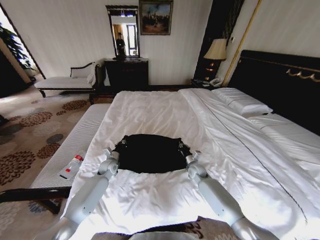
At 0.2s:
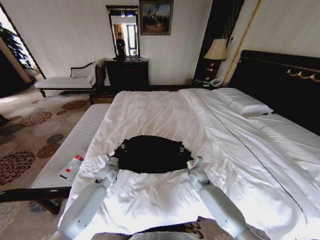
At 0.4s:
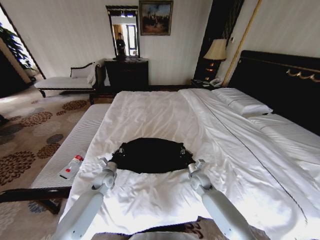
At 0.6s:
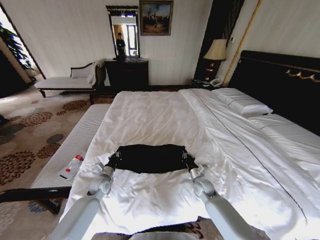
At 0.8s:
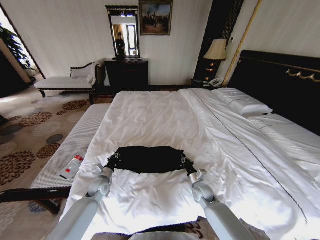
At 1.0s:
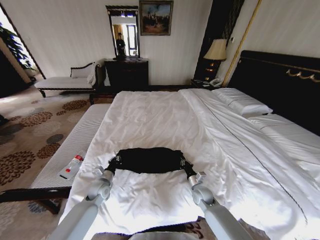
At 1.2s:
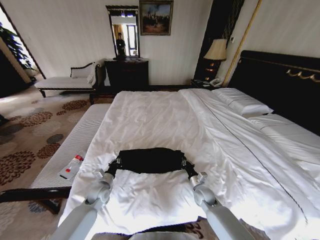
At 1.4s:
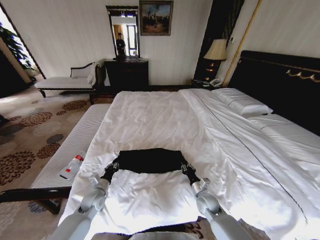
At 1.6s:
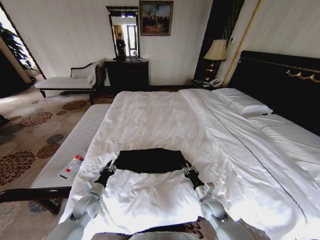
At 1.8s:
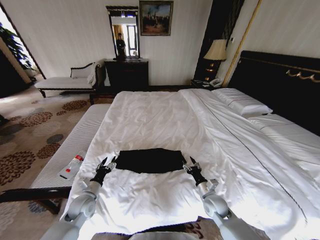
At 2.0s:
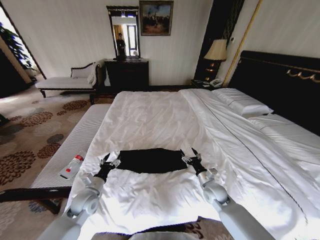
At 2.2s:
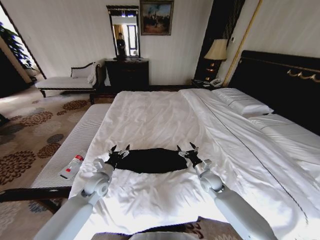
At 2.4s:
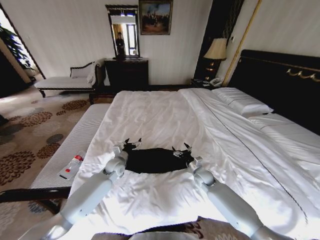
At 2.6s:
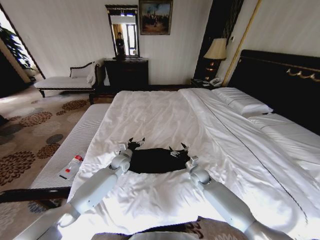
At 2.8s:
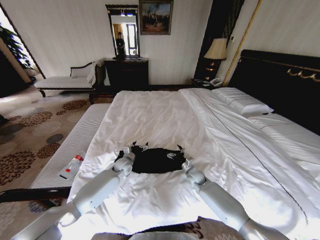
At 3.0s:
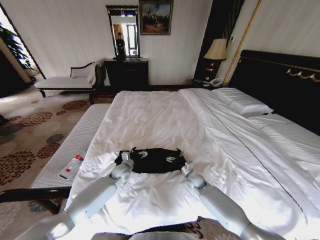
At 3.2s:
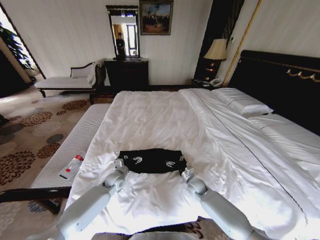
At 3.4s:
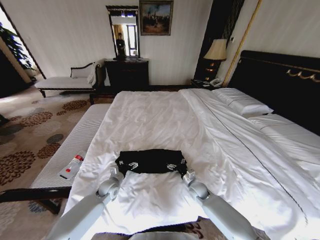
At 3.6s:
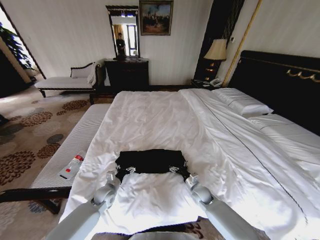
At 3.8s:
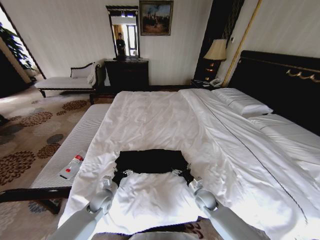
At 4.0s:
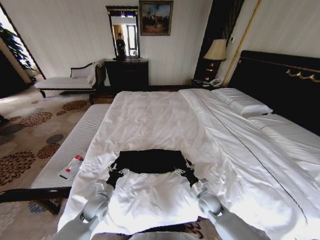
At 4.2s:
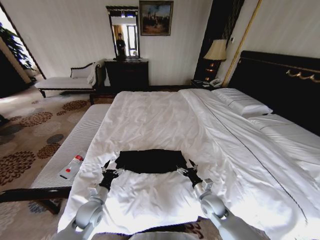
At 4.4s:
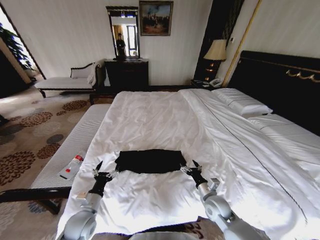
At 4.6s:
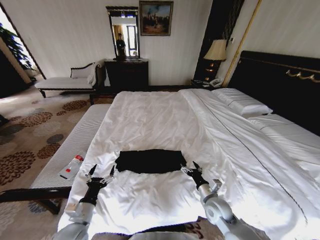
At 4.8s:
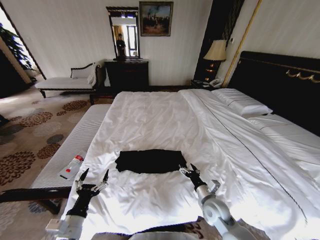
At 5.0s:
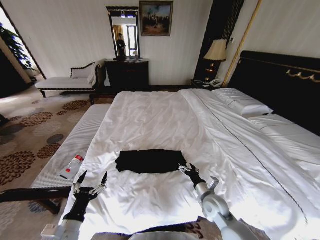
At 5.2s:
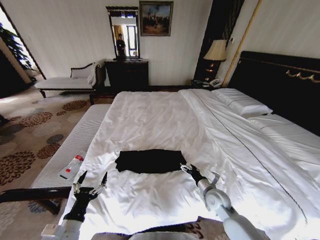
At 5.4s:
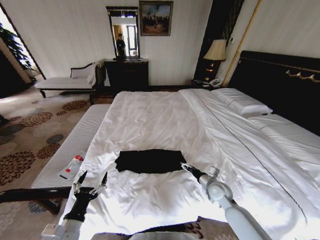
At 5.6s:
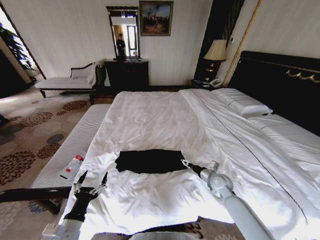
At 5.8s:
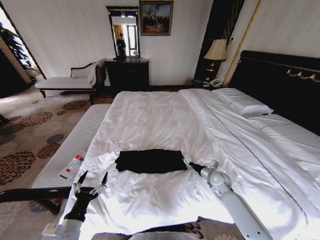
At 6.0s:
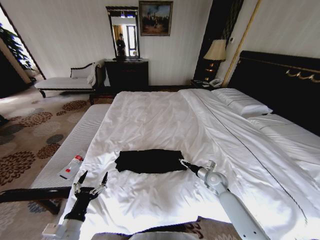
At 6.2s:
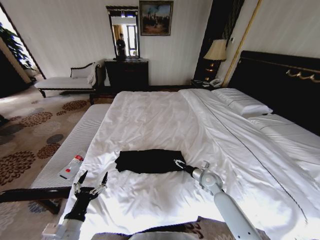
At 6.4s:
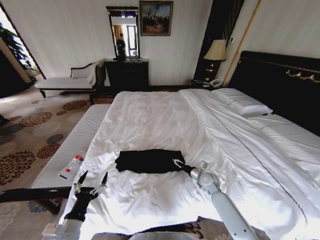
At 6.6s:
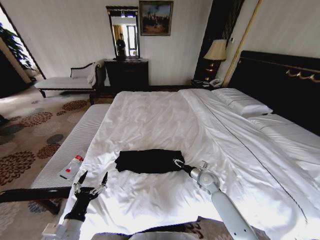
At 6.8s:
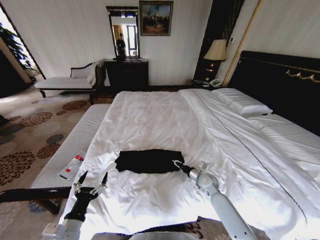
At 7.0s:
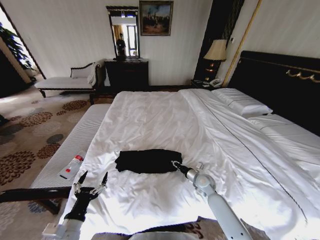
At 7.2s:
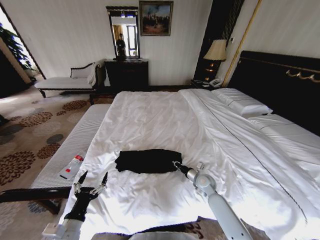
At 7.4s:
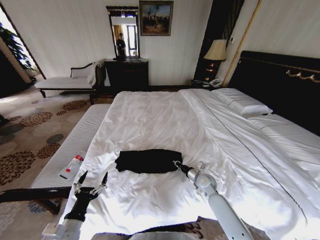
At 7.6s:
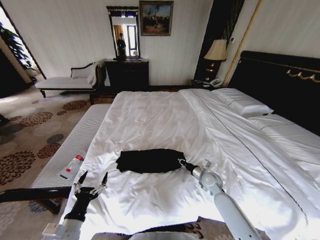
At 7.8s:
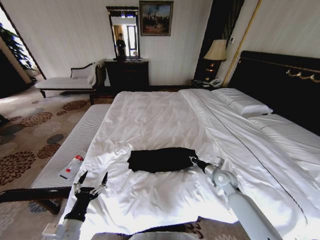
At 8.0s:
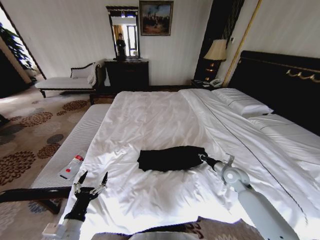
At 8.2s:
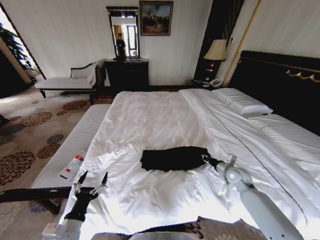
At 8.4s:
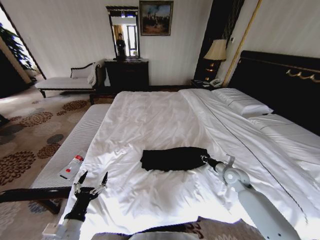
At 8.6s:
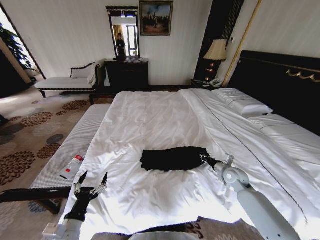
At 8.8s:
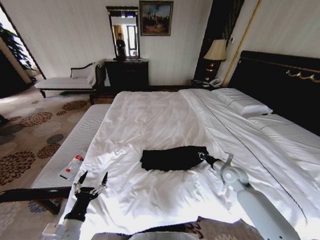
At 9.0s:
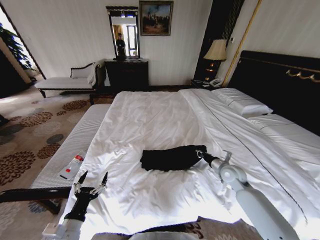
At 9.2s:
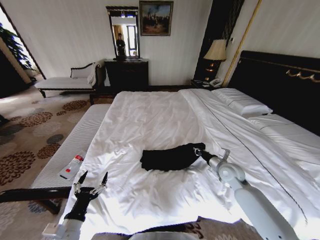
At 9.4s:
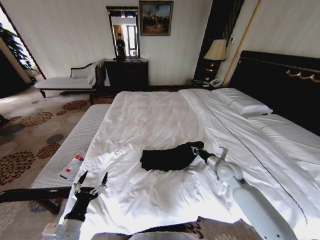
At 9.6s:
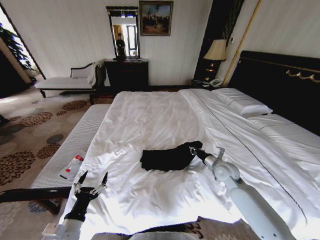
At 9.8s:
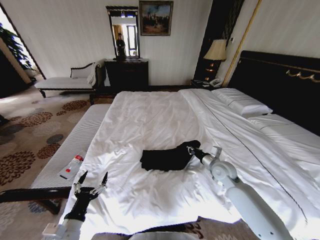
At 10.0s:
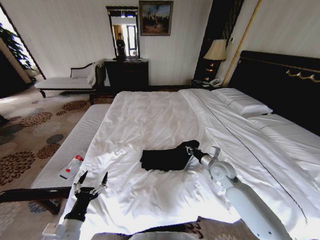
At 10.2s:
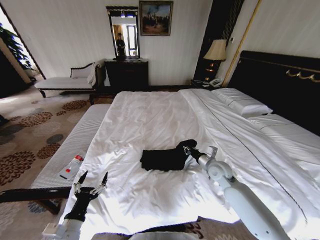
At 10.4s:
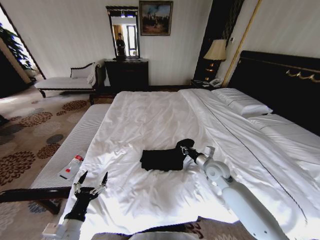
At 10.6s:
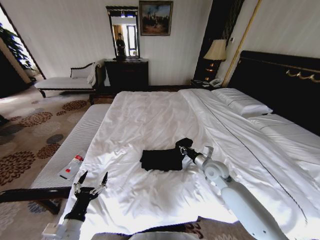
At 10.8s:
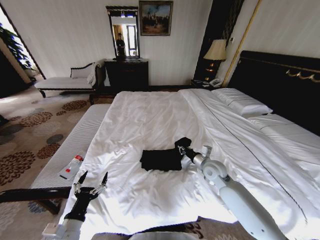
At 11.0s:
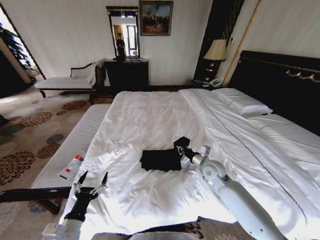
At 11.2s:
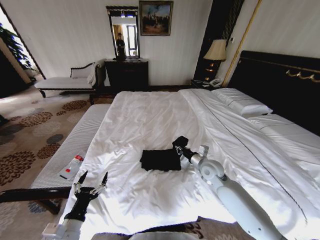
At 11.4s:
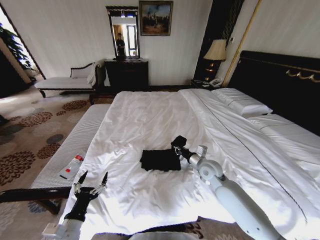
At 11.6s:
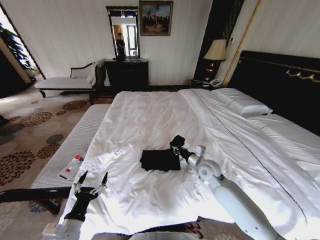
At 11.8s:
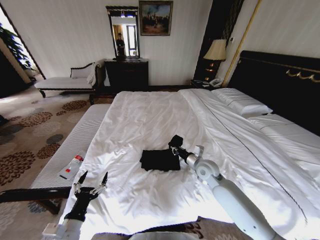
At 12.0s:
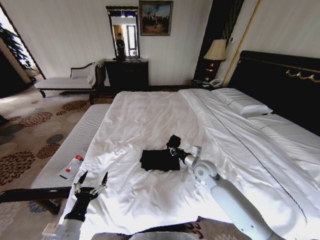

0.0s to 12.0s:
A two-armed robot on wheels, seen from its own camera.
Task of the whole recording: Fold the clothes on the bed.
0.0s to 1.6s: The two grippers go approximately 20 cm backward. The left gripper opens up. Meanwhile the right gripper opens up.
1.6s to 3.0s: The left gripper heads forward and to the right, covering some 20 cm, and opens its fingers, while the right gripper shifts roughly 15 cm forward, and opens its fingers.
3.0s to 4.4s: The right gripper heads backward and upward, covering roughly 15 cm. Meanwhile the left gripper goes roughly 25 cm backward and to the left.
4.4s to 6.0s: The left gripper travels backward by about 10 cm; the right gripper travels forward and to the right by approximately 15 cm.
6.0s to 7.6s: The right gripper closes up.
7.6s to 9.0s: The right gripper moves upward and to the right, about 10 cm.
9.0s to 10.4s: The right gripper shifts some 5 cm to the left.
10.4s to 12.0s: The right gripper travels to the left by about 5 cm.

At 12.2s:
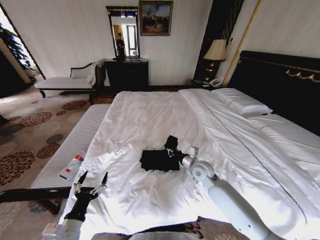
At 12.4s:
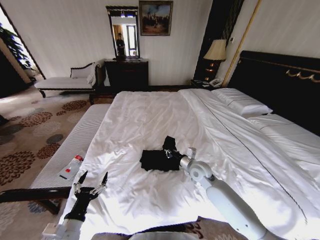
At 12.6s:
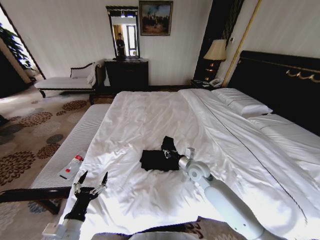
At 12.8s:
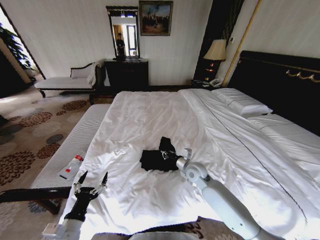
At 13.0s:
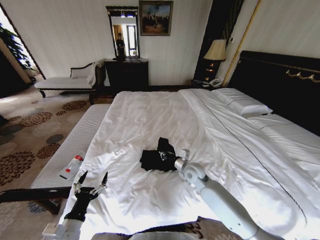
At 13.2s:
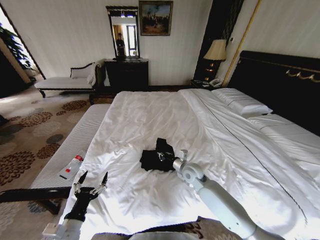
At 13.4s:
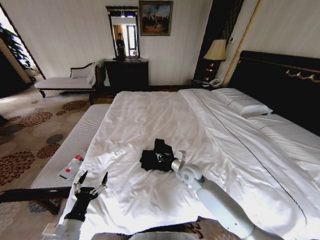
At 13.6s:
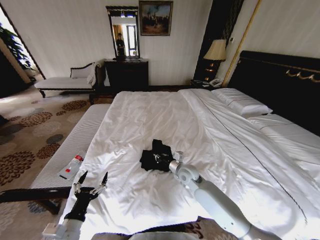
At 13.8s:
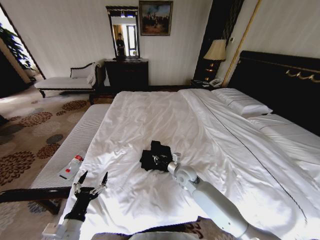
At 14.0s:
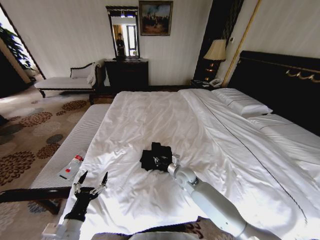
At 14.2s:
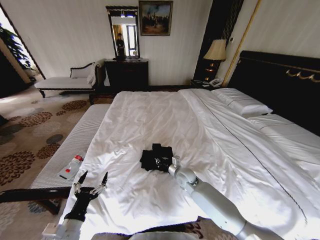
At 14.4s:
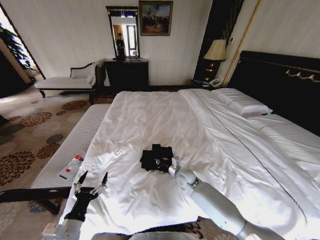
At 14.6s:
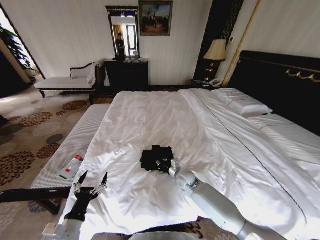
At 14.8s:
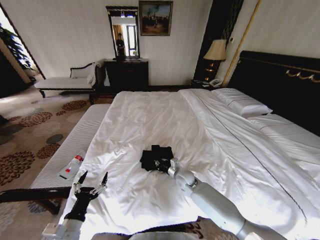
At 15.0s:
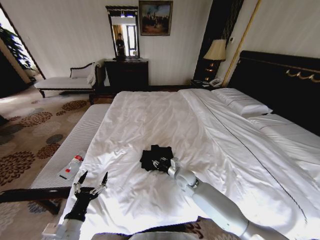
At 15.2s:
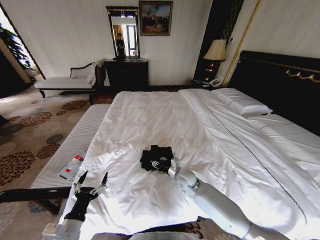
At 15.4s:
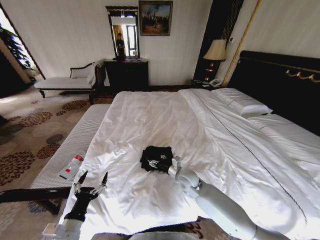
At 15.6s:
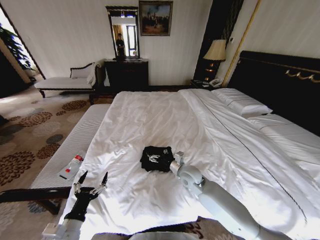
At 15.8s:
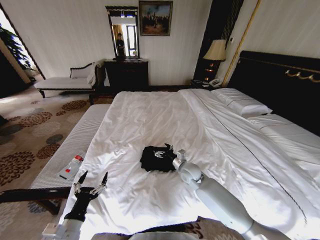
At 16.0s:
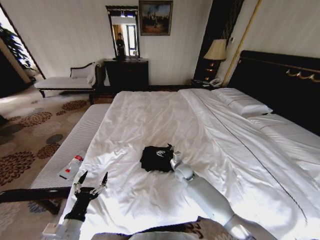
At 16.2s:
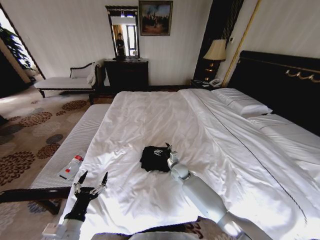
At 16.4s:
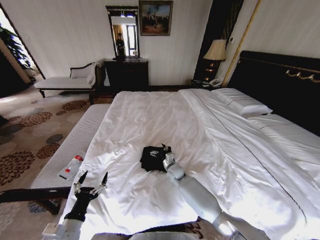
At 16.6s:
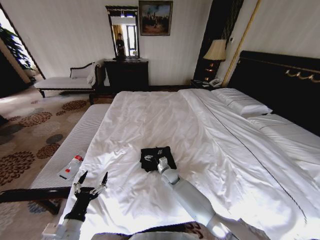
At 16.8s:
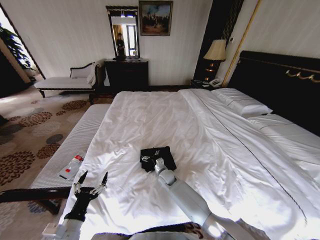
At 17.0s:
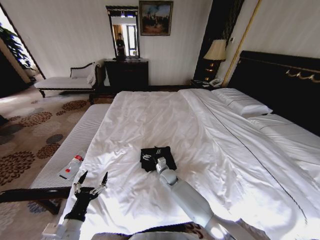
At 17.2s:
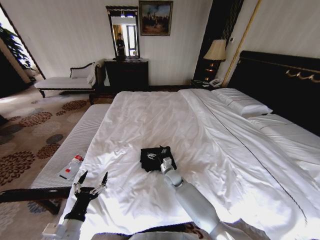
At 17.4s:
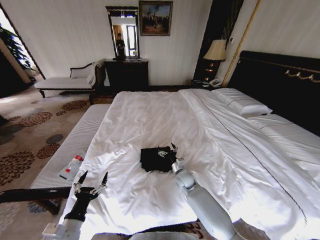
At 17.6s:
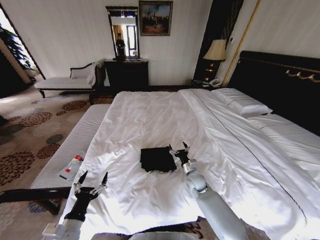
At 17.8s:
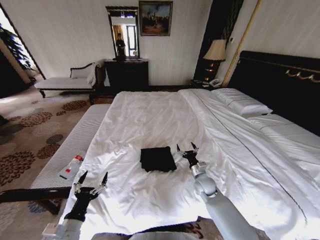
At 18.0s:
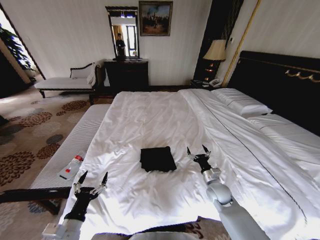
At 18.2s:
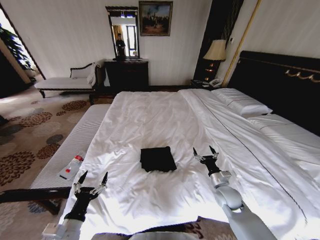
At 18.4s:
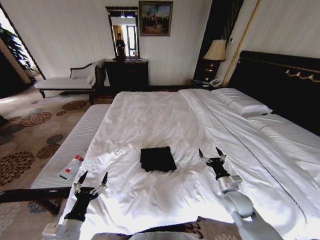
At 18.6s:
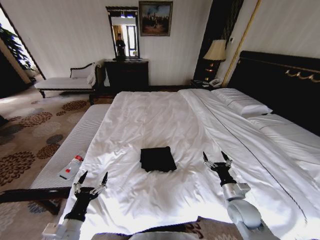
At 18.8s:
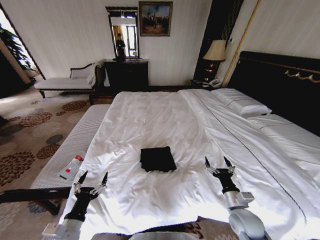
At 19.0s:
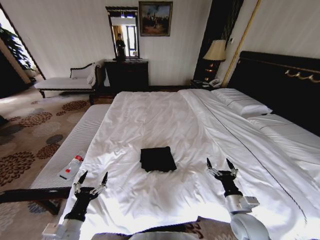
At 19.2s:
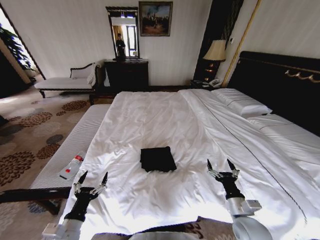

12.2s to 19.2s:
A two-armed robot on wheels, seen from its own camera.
Task of the whole recording: Fold the clothes on the bed.
12.2s to 13.6s: The right gripper heads to the left, covering some 5 cm.
15.0s to 16.4s: The right gripper travels forward by approximately 5 cm, and opens.
16.4s to 17.8s: The right gripper shifts some 15 cm to the right and backward.
17.8s to 19.2s: The right gripper is displaced backward and to the right by about 20 cm.

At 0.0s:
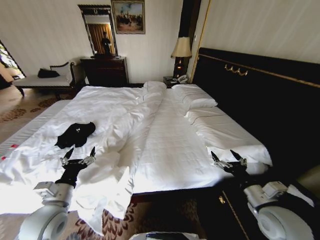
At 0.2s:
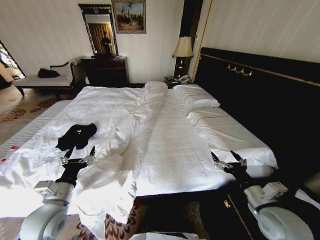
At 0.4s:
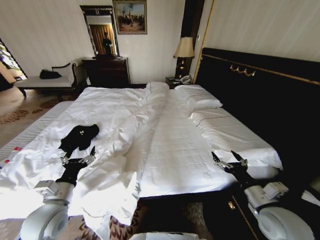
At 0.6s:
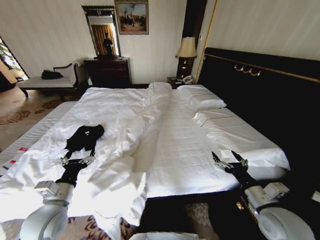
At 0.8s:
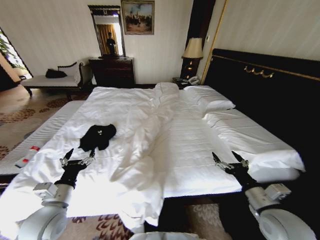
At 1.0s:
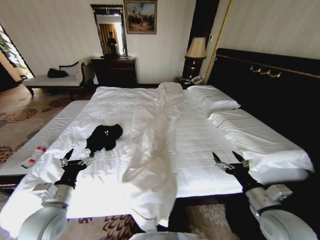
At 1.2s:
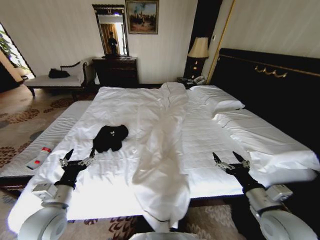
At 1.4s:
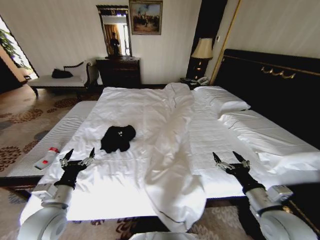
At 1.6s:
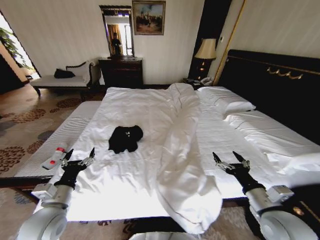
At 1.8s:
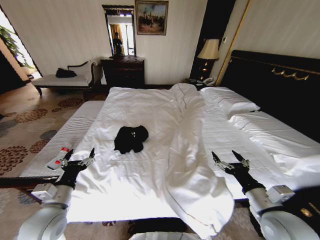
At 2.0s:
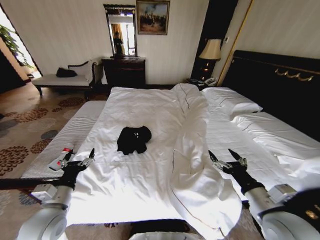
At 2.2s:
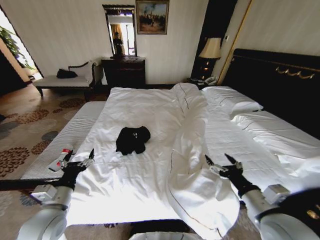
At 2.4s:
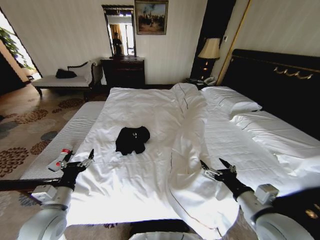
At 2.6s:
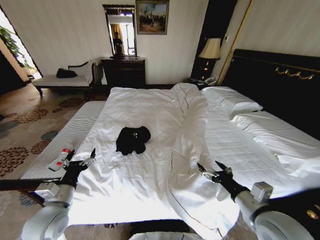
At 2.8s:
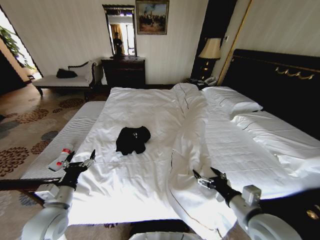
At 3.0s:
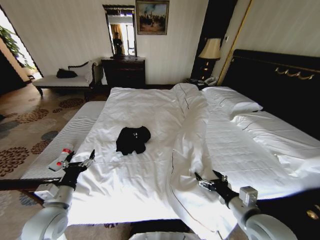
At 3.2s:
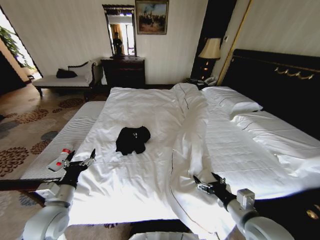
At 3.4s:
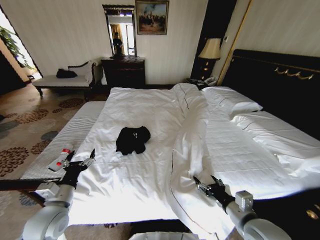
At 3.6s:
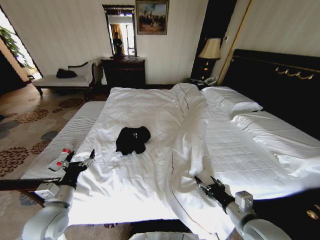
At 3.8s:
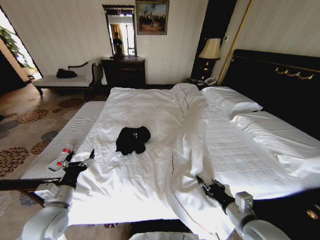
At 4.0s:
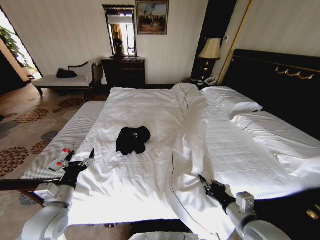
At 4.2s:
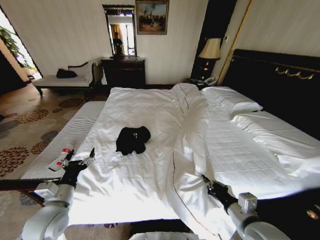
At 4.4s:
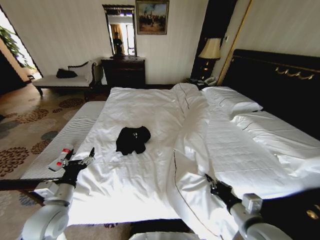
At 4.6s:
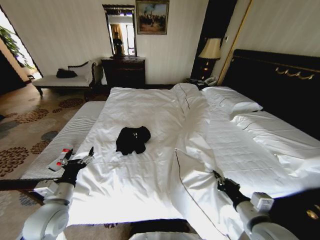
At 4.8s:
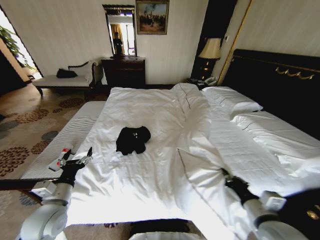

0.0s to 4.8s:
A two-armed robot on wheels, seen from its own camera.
Task of the whole recording: Fold the clothes on the bed.
1.6s to 3.2s: The right gripper moves to the left, about 5 cm.
3.2s to 4.8s: The right gripper closes its fingers.
